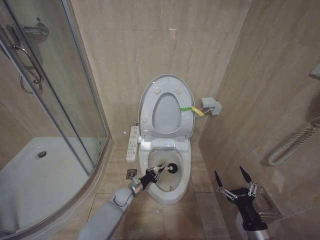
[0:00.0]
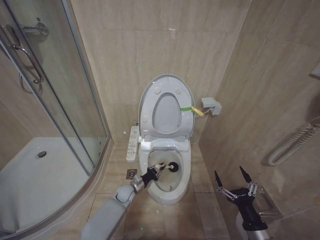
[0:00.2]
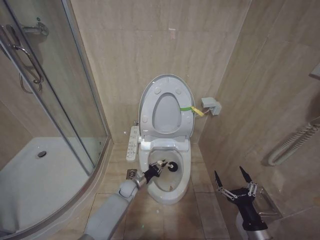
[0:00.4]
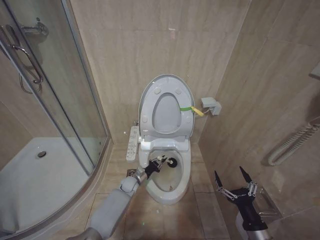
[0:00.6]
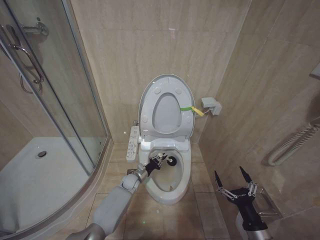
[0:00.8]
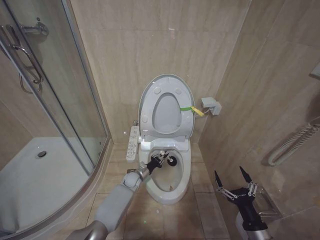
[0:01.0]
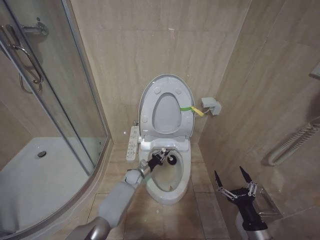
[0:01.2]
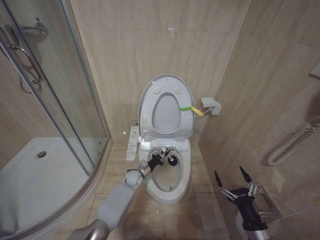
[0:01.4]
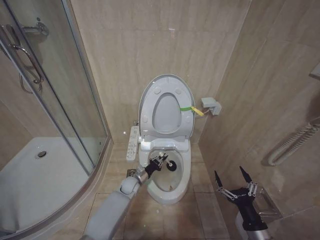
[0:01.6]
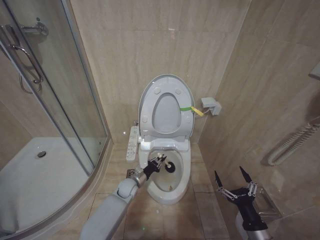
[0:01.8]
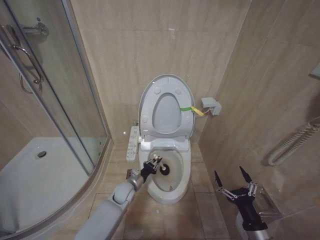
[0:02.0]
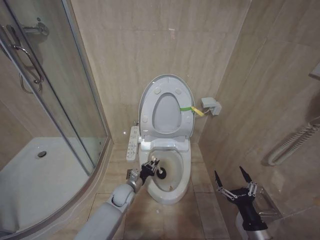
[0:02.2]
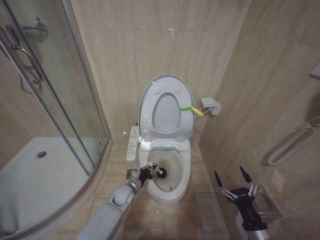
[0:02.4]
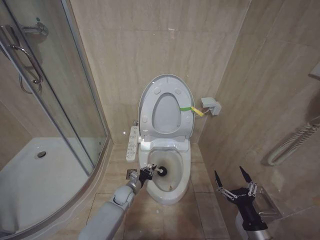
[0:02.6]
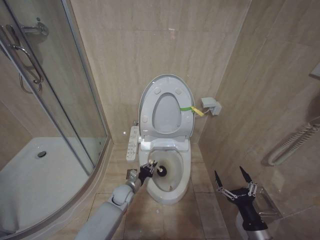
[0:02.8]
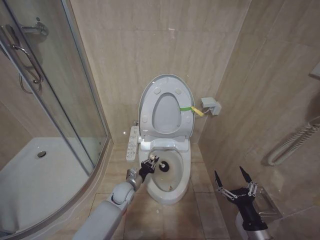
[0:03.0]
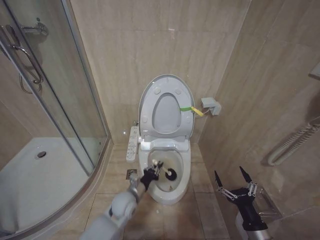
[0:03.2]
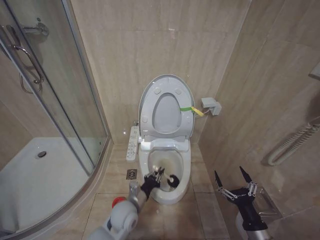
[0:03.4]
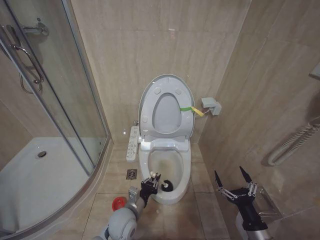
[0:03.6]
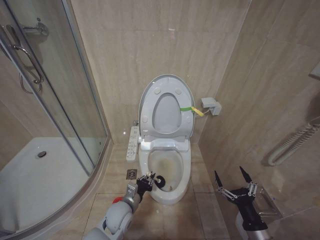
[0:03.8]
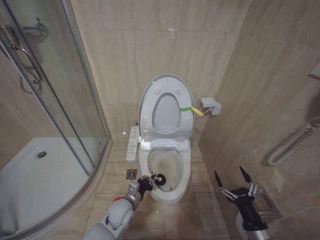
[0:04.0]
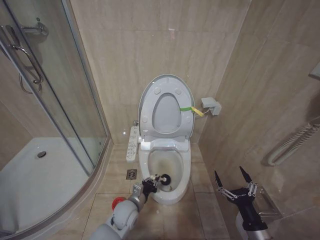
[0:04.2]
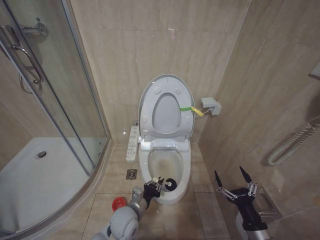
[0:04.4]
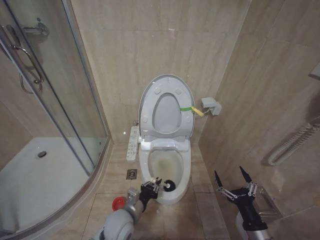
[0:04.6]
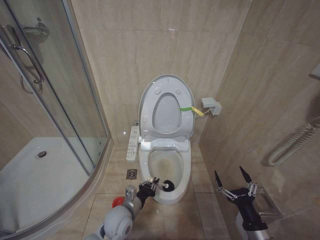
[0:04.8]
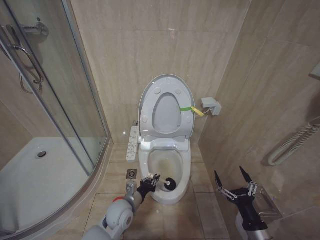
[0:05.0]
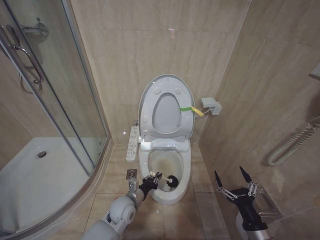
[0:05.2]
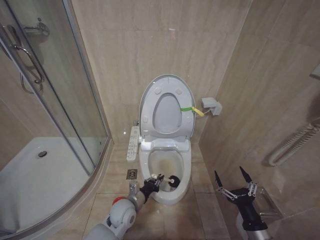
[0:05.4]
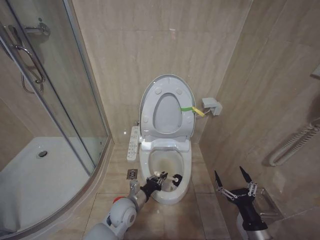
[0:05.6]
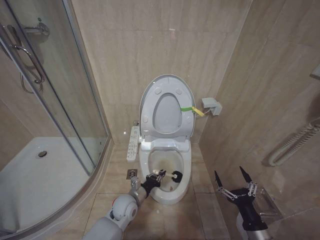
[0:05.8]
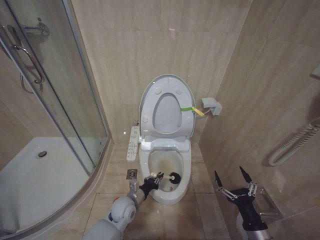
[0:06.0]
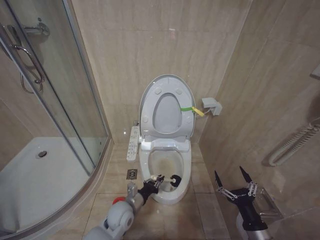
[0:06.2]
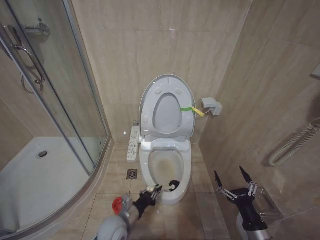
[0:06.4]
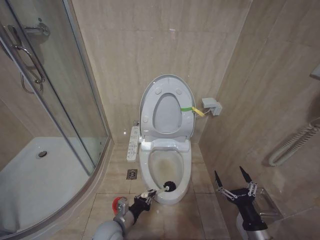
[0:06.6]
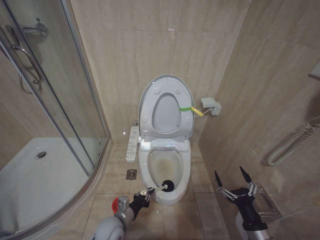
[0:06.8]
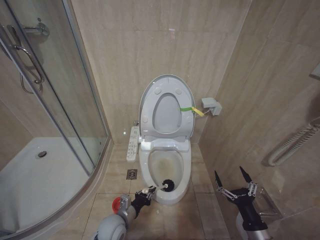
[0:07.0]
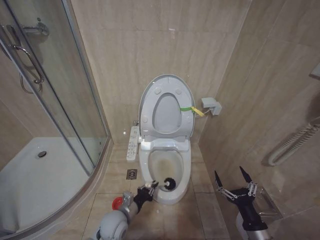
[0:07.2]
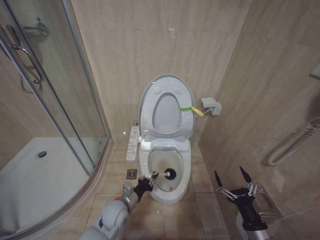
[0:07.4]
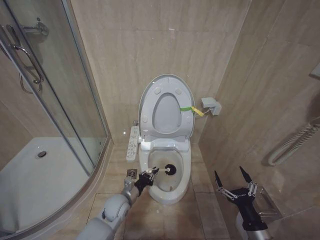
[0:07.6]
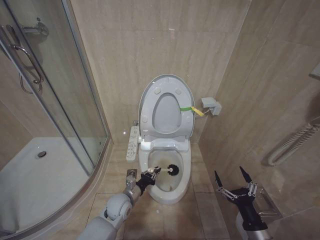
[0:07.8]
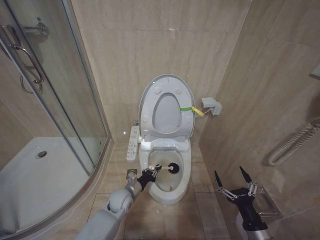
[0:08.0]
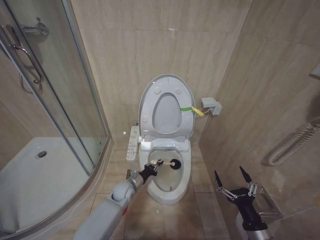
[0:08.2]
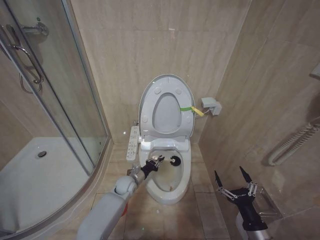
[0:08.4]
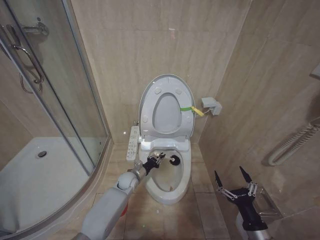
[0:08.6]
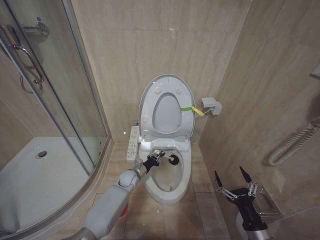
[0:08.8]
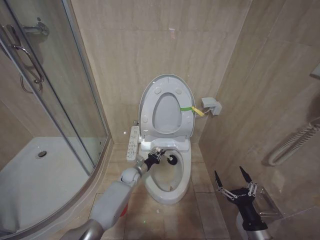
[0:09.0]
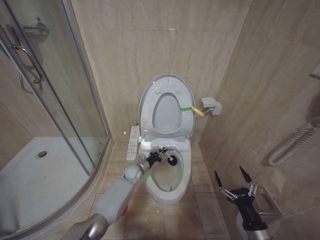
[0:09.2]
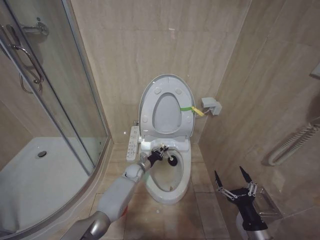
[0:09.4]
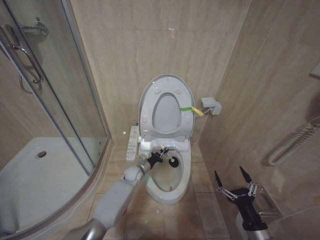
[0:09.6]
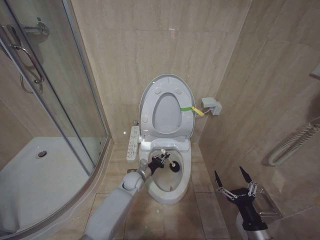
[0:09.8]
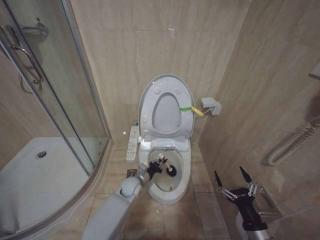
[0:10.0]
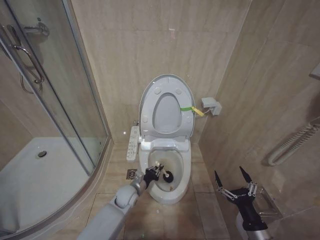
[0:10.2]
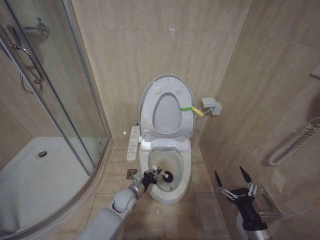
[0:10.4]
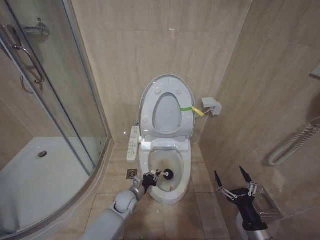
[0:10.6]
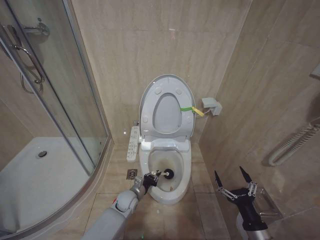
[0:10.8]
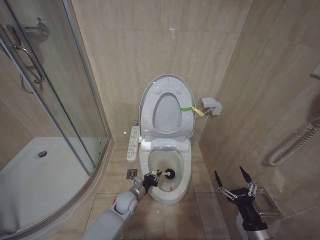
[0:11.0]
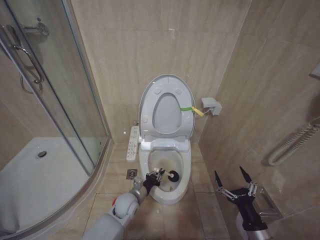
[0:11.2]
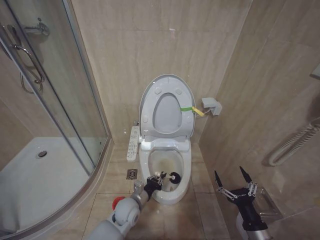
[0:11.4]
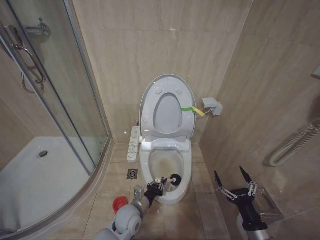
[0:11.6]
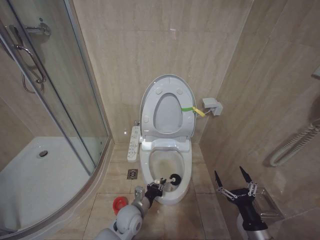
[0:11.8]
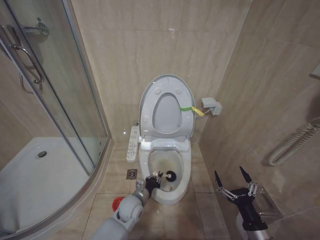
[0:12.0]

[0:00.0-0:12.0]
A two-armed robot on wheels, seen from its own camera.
Task of the whole recording: Open the toilet lid, clean the toilet bowl with a toilet brush, close the toilet lid, and flush.
0:01.6 to 0:03.0: The left gripper is displaced backward by approximately 5 cm.
0:03.0 to 0:04.4: The left gripper goes about 10 cm backward.
0:04.4 to 0:06.0: The left gripper ends up roughly 5 cm from where it was.
0:06.0 to 0:07.6: The left gripper goes backward and returns, about 10 cm each way.
0:07.6 to 0:09.0: The left gripper goes some 15 cm forward.
0:09.0 to 0:10.4: The left gripper travels backward by approximately 10 cm.
0:10.4 to 0:12.0: The left gripper ends up some 5 cm from where it was.

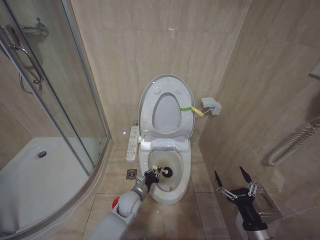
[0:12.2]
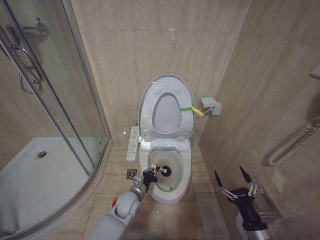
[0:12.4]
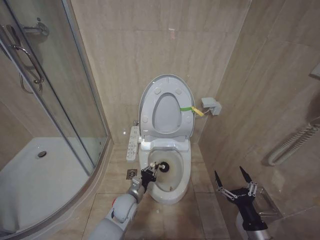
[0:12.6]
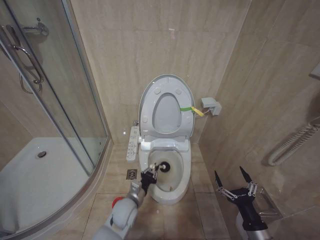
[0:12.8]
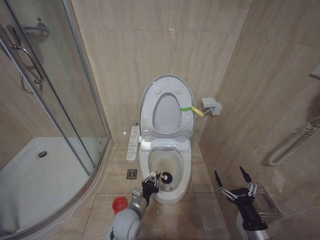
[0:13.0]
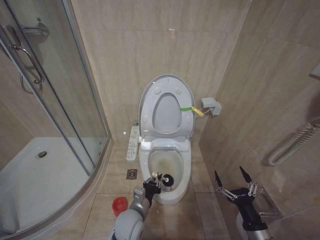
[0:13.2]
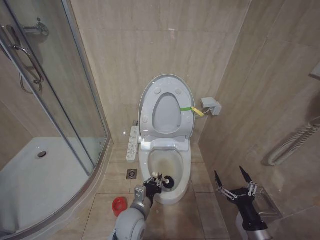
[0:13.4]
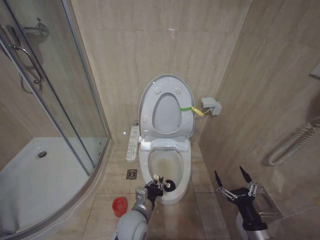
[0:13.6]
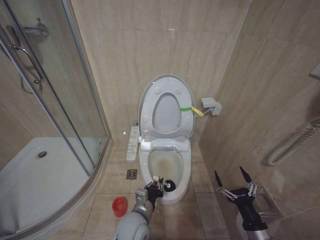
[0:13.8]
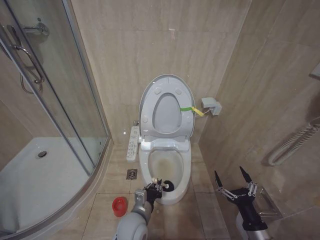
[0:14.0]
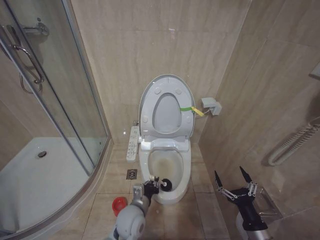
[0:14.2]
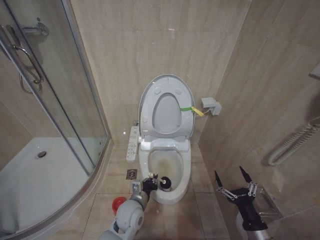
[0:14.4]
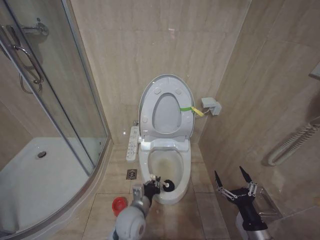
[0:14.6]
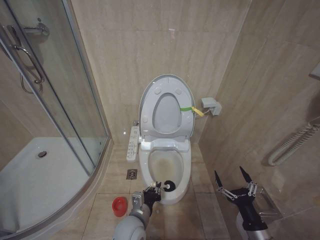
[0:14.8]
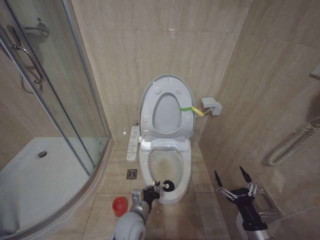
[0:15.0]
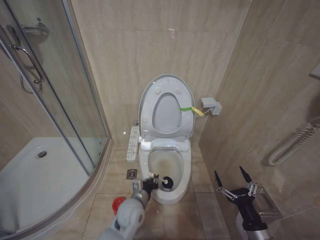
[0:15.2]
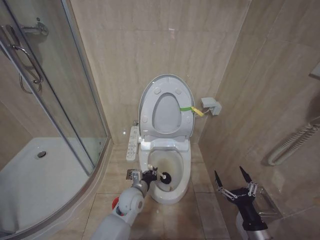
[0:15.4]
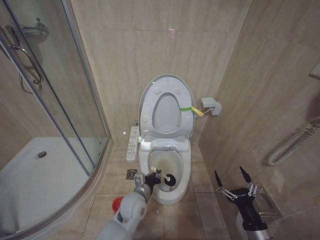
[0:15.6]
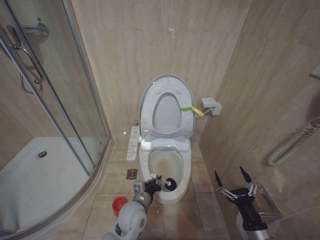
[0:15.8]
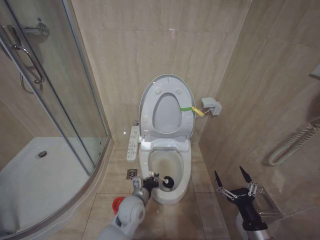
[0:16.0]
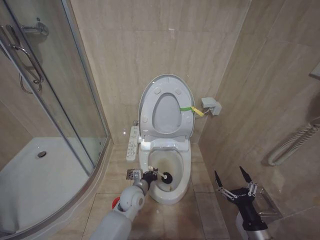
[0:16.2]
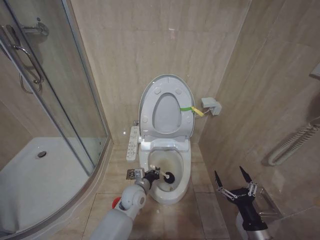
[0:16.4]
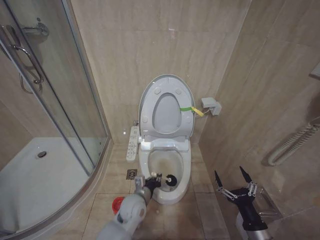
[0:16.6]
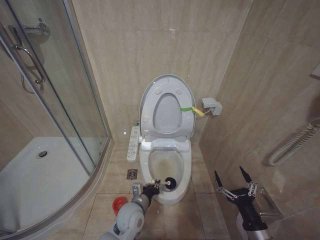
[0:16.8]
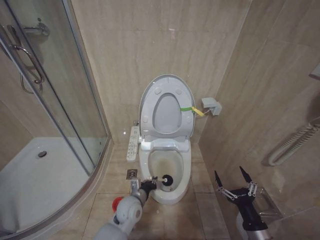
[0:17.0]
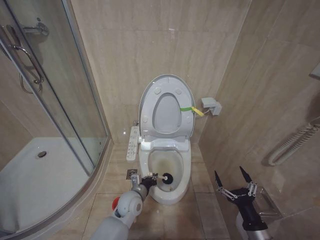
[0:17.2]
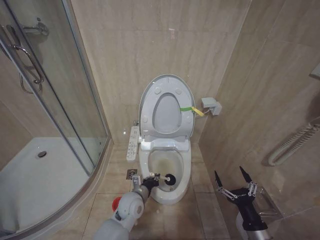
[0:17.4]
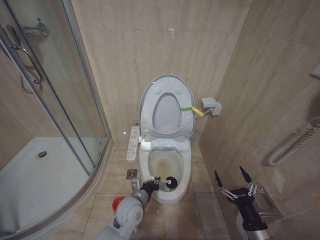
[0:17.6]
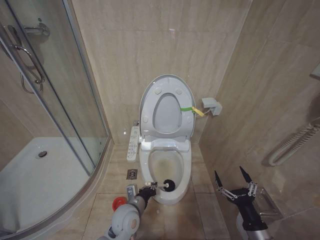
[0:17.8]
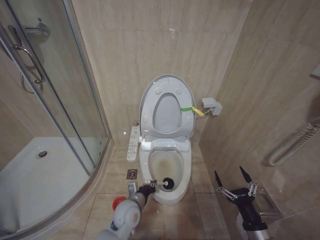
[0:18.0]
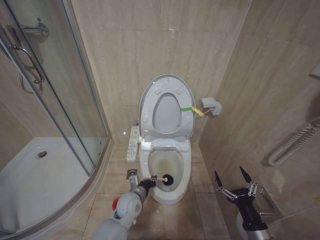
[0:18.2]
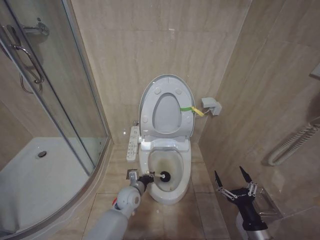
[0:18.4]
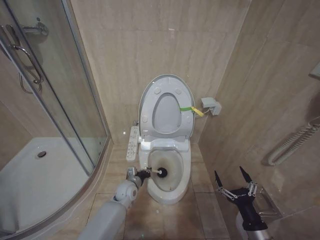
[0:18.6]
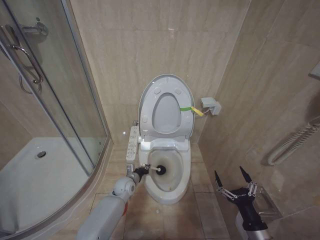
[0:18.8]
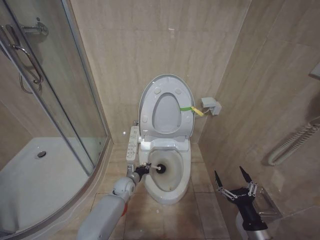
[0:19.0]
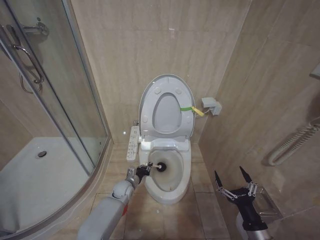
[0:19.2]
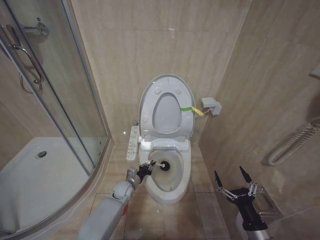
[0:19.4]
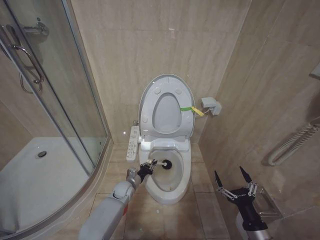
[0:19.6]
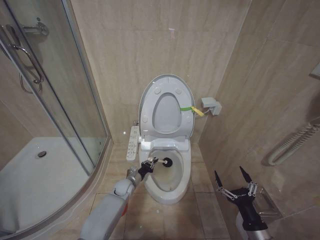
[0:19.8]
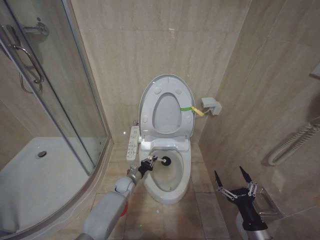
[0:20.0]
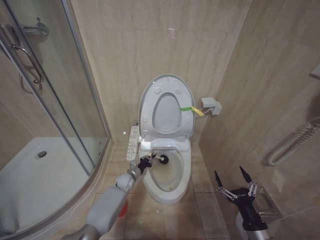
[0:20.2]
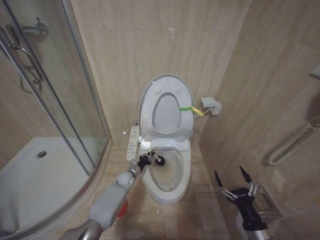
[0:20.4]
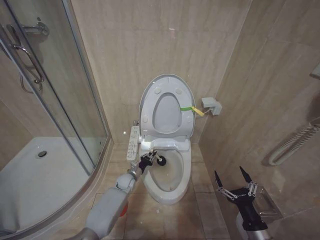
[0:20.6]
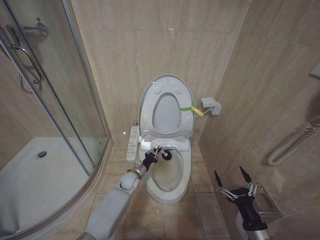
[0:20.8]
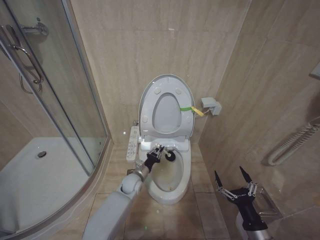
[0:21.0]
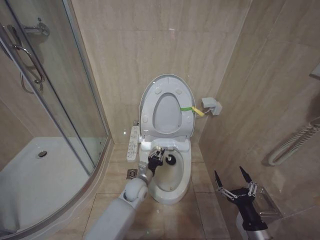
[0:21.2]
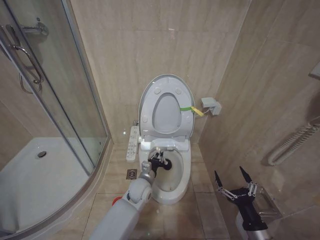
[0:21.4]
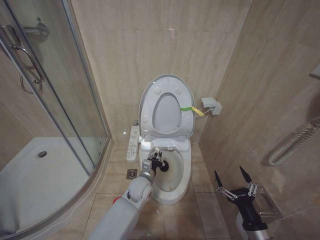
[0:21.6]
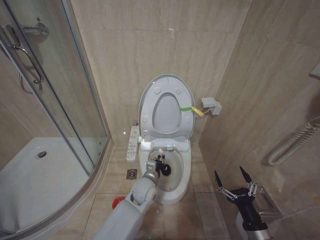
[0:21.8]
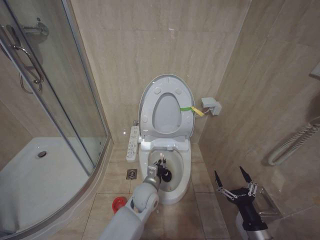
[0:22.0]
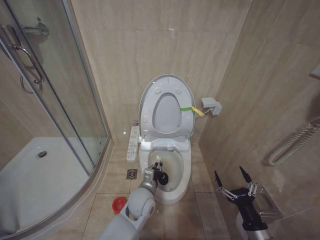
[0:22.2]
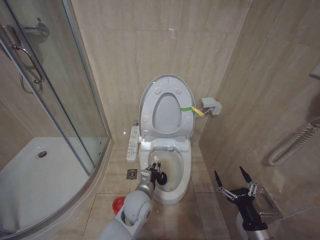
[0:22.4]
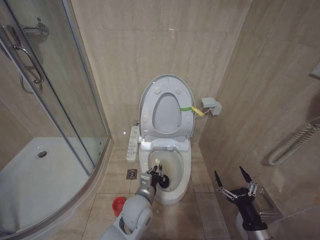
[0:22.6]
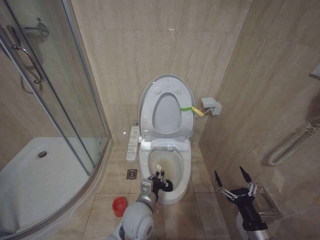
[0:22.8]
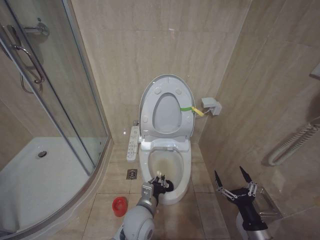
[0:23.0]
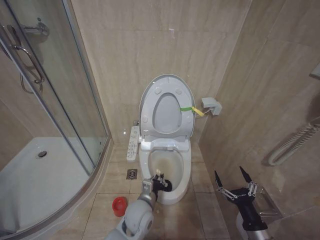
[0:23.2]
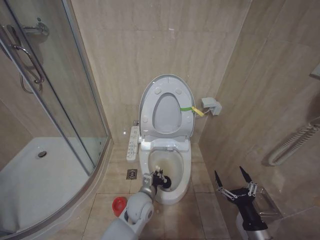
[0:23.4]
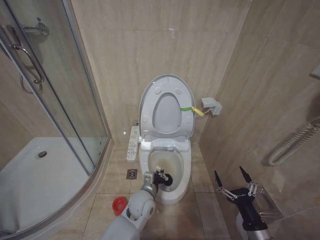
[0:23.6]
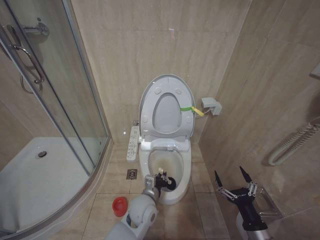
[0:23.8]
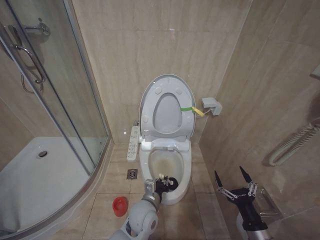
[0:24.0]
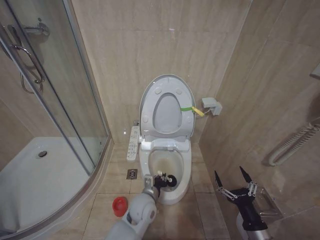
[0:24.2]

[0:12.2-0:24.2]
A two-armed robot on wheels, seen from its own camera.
Task of the whole recording: Open the toilet lid, clean the toilet bowl with a toilet brush, close the toilet lid, and flush.
0:12.2 to 0:13.8: The left gripper goes some 15 cm backward and upward.
0:13.8 to 0:15.2: The left gripper swings forward and backward, some 5 cm each way, with 2 reversals.
0:15.2 to 0:16.6: The left gripper swings forward and backward, approximately 5 cm each way, with 2 reversals.
0:16.6 to 0:18.2: The grippers stay close to where they were, moving slightly.
0:18.2 to 0:19.8: The left gripper heads forward and downward, covering some 15 cm.
0:19.8 to 0:21.2: The left gripper heads upward and to the right, covering approximately 10 cm.
0:21.2 to 0:22.6: The left gripper heads backward and upward, covering approximately 15 cm.
